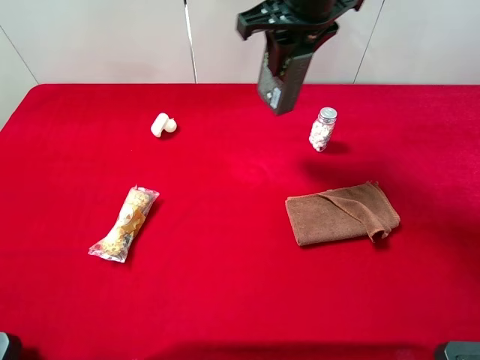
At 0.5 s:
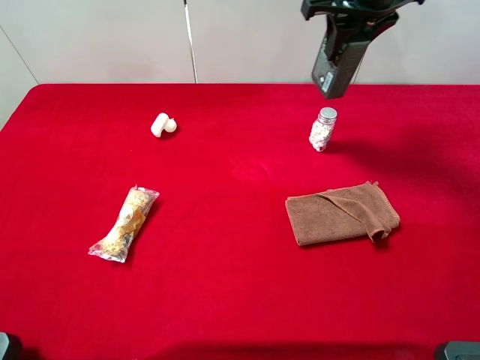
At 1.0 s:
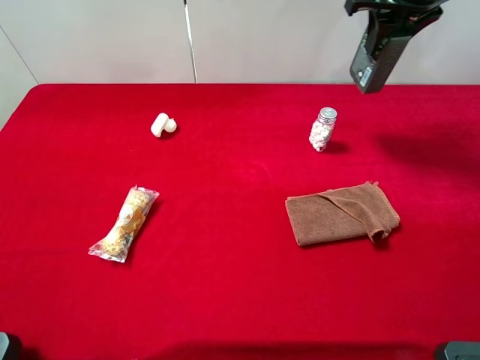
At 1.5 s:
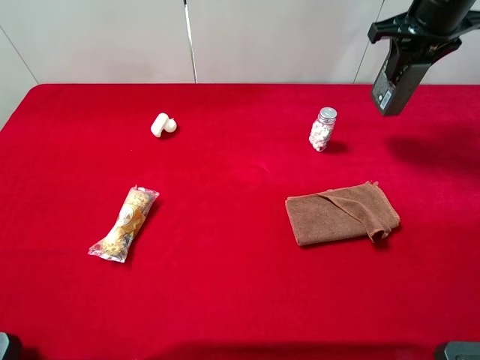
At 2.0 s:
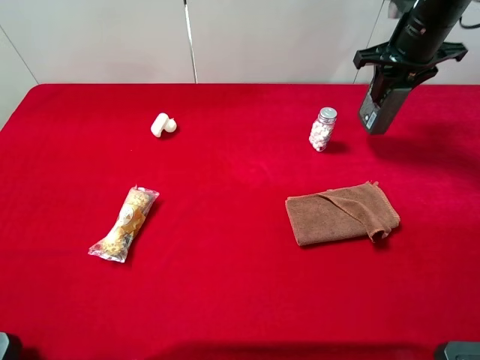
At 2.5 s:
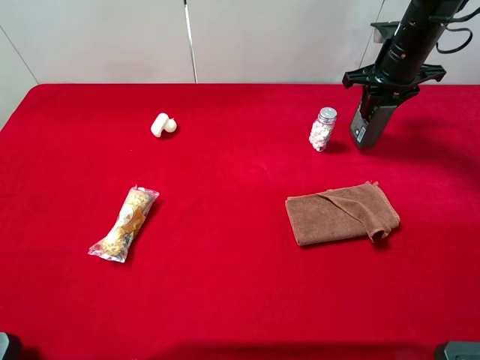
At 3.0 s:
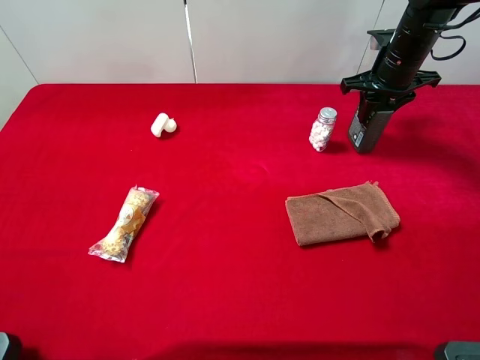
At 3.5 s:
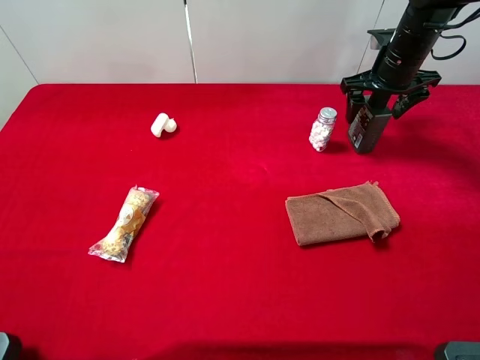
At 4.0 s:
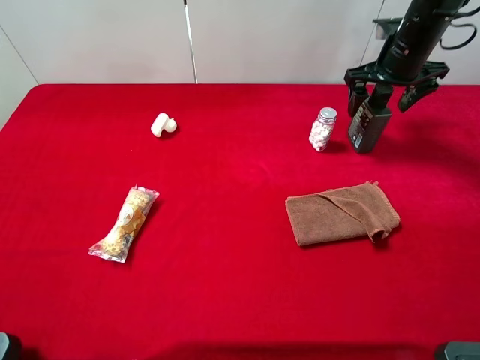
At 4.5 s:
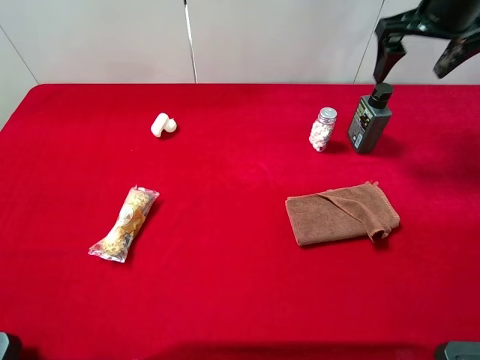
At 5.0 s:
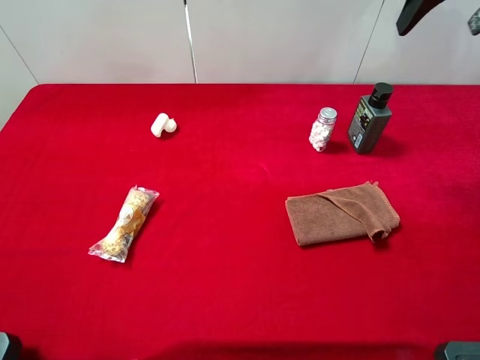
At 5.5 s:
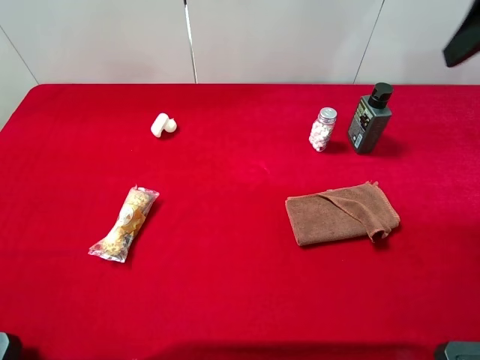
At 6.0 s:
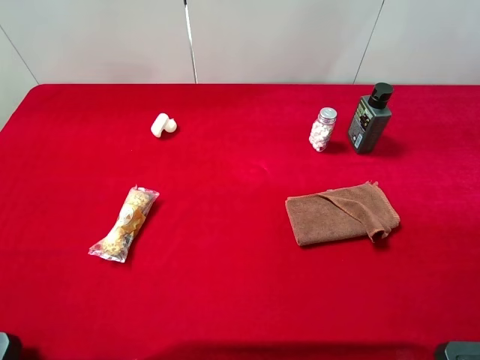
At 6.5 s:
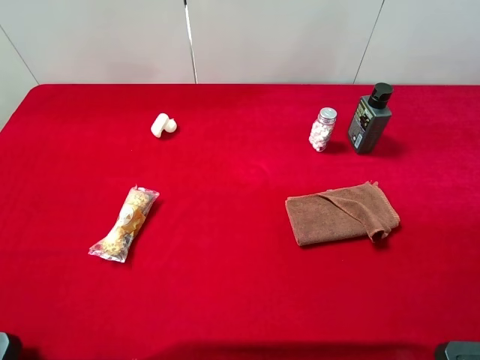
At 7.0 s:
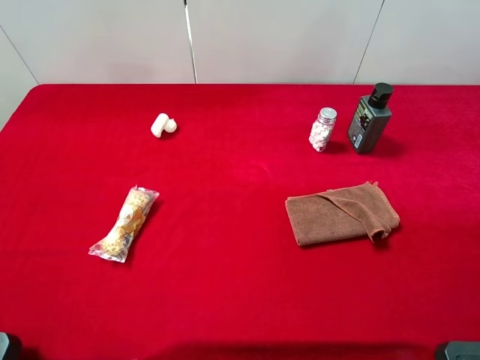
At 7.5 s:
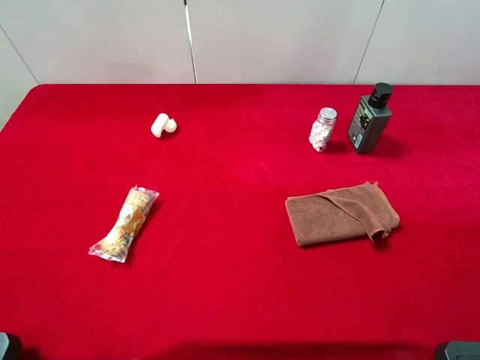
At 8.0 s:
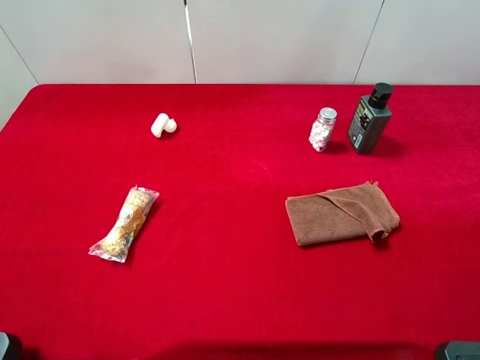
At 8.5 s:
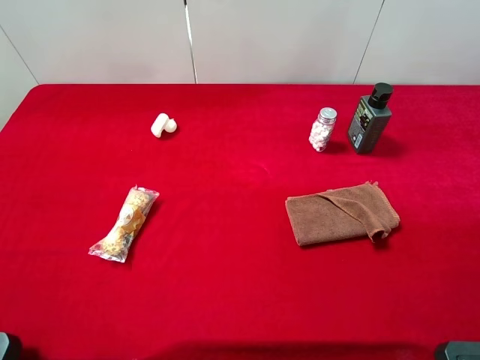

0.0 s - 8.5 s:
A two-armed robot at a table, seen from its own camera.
Task of the whole recording: the gripper move the object.
Step, 0.0 s - 4.0 s: Place the hard facial cleanser on the table with the right gripper.
0.0 s - 2.0 s: The right gripper travels to the right and downward by some 20 cm.
2.0 s - 4.0 s: The right gripper opens up.
4.0 s - 6.5 s: The right gripper is displaced backward by about 40 cm.
